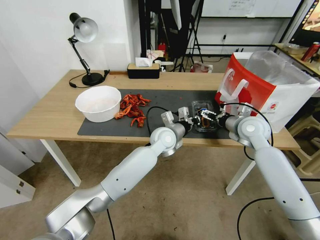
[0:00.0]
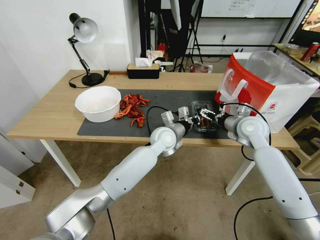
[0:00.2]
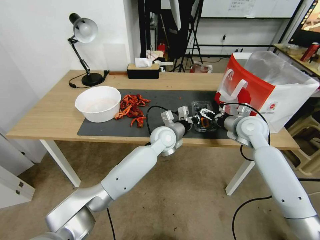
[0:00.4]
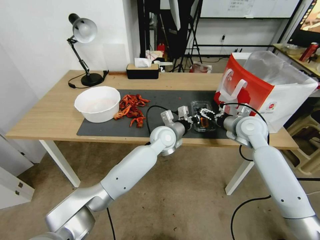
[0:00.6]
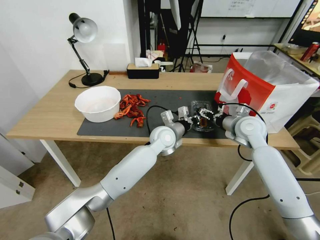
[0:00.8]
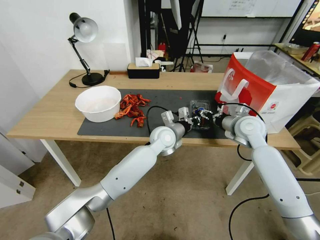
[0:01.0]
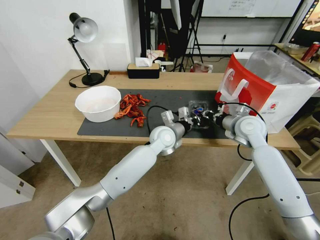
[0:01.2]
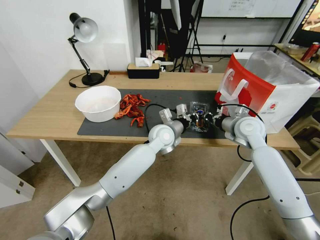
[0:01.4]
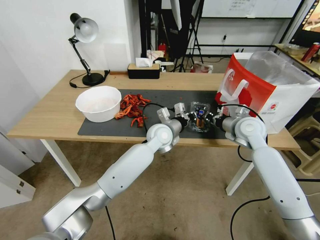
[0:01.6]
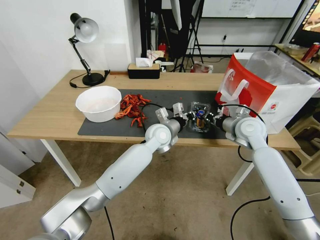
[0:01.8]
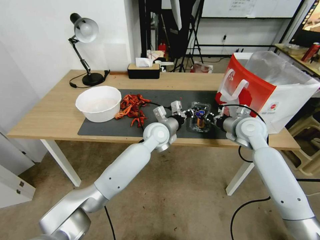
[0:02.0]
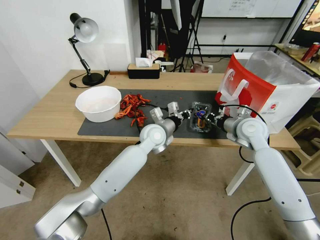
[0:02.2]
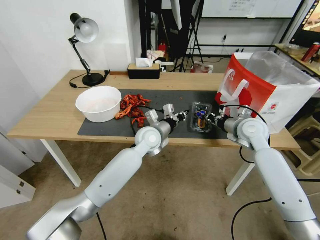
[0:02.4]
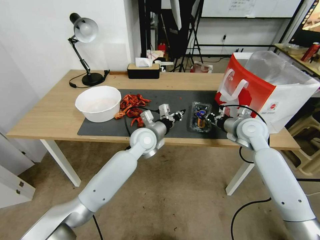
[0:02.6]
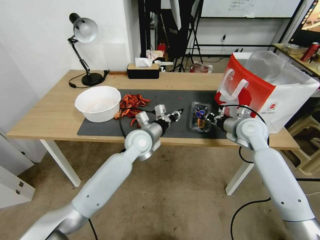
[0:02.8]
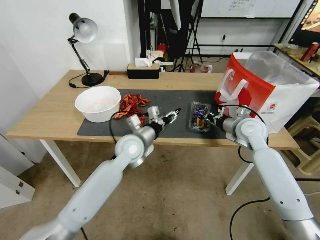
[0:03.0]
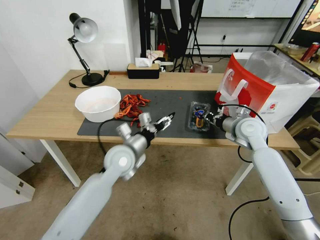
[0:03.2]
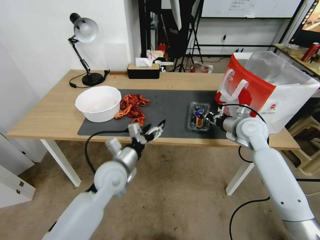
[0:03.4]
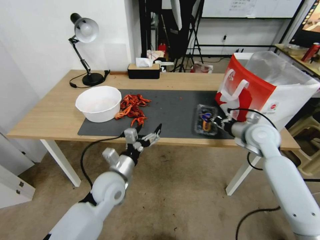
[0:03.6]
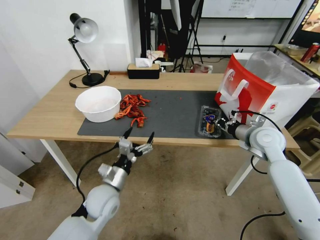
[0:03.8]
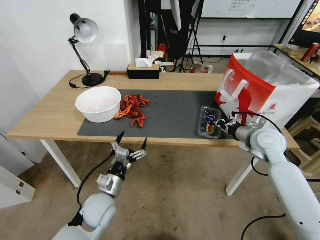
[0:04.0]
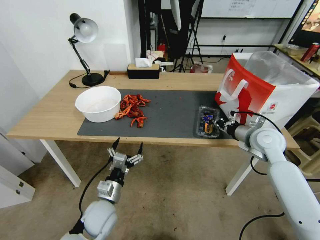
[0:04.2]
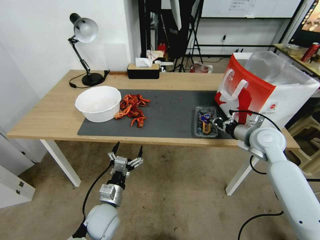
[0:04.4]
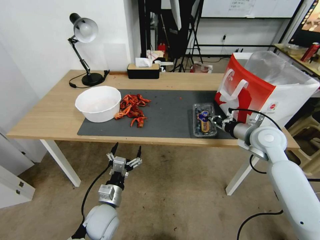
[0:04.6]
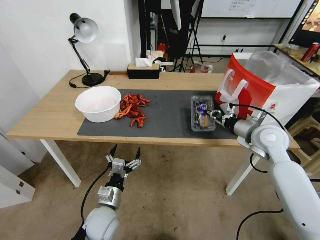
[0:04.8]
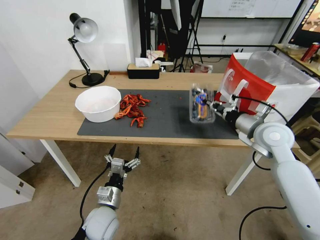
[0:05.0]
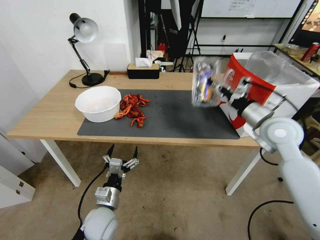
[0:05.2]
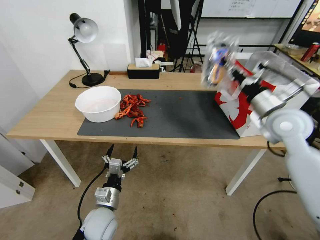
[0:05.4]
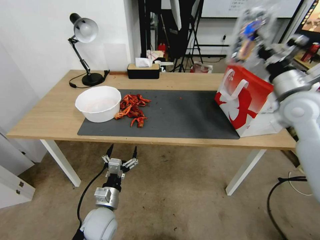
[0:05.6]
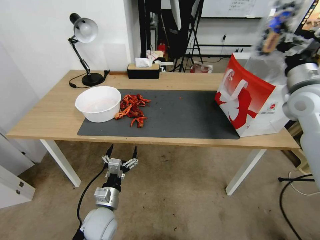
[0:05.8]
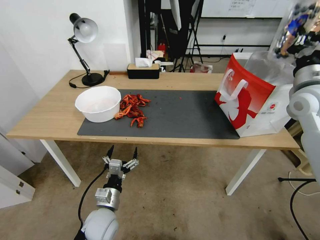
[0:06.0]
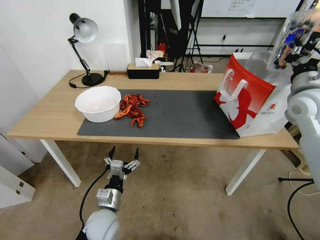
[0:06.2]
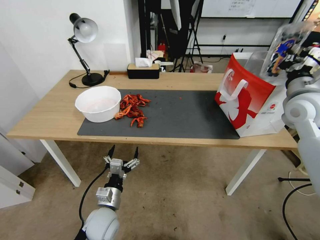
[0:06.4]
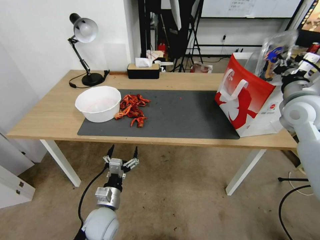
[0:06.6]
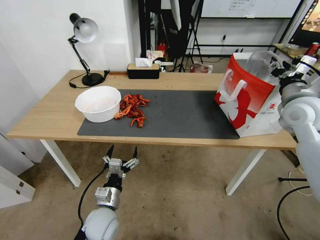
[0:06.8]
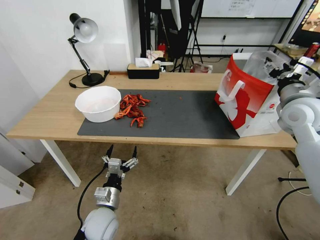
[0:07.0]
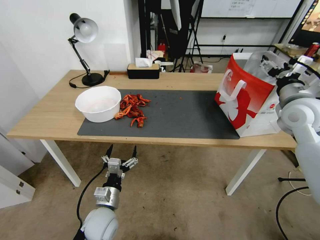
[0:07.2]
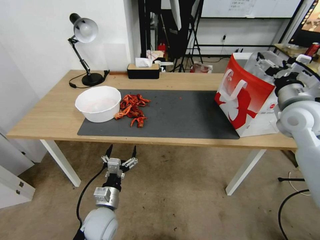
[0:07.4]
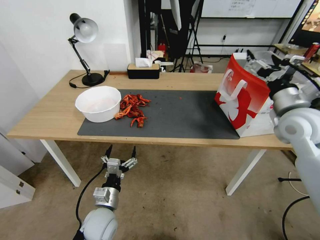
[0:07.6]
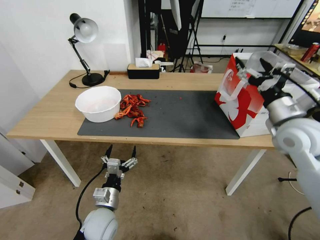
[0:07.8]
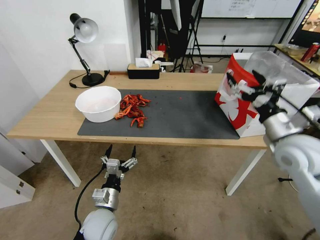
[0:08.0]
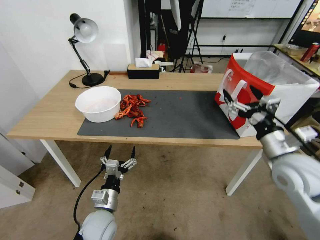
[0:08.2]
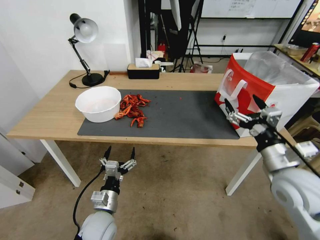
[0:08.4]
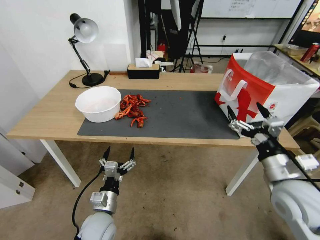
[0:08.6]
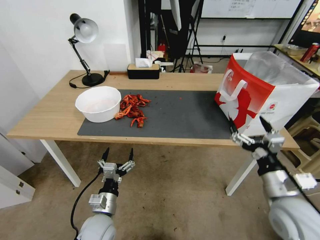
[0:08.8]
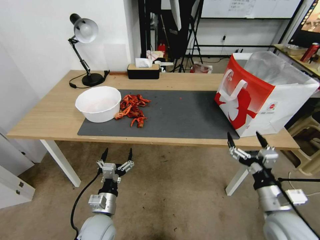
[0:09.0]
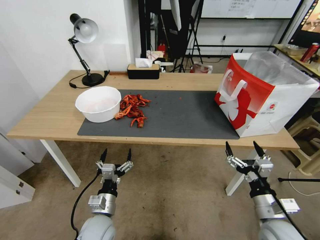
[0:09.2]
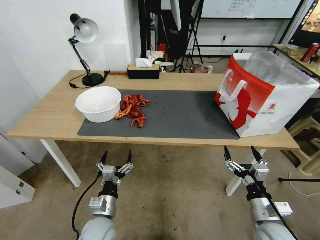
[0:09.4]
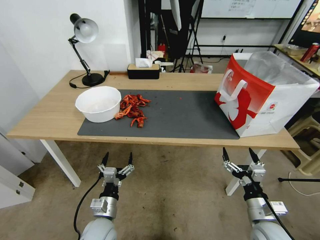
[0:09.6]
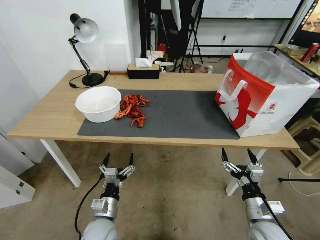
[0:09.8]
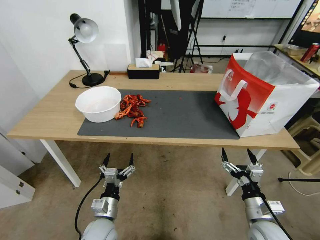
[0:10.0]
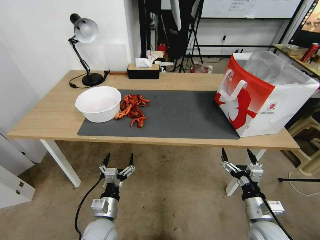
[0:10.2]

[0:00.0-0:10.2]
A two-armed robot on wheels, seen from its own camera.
Task of the whole recording: Close the takeout container lid, then place the container into the takeout bag.
0:00.0 to 0:01.4: The right gripper closes its fingers.
0:01.4 to 0:03.0: The left gripper moves to the left and backward, approximately 15 cm, and opens up.
0:03.0 to 0:04.4: The right gripper changes place by some 5 cm. Meanwhile the left gripper shifts some 25 cm backward, downward and to the left, and opens its fingers.
0:04.4 to 0:05.8: The right gripper goes about 15 cm upward.
0:05.8 to 0:07.2: The right gripper opens up.
0:07.2 to 0:08.8: The right gripper heads backward and downward, covering about 25 cm.
0:08.8 to 0:10.2: The right gripper heads downward, covering about 15 cm.
